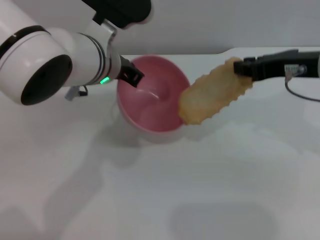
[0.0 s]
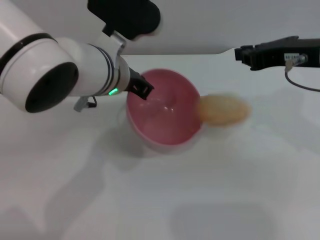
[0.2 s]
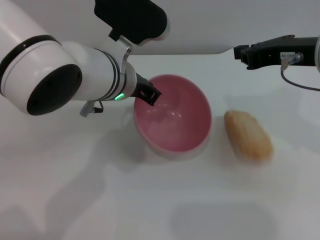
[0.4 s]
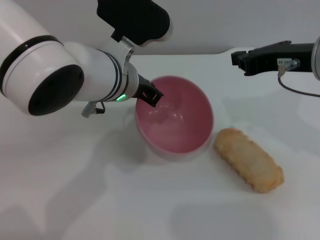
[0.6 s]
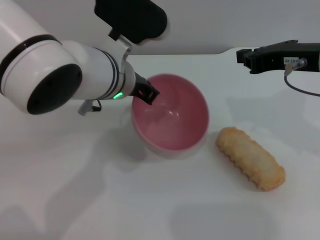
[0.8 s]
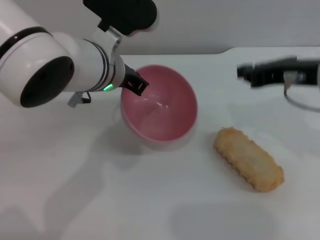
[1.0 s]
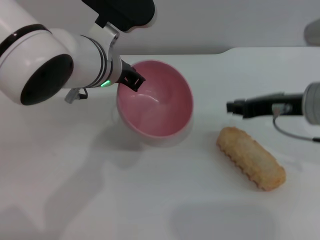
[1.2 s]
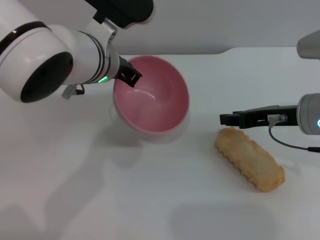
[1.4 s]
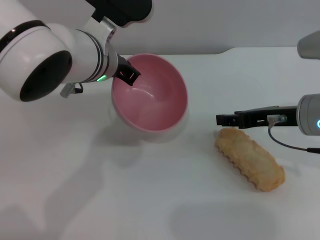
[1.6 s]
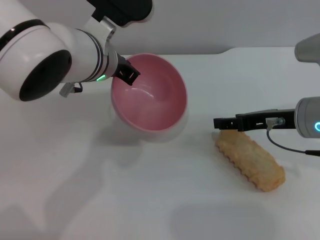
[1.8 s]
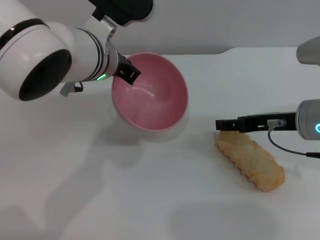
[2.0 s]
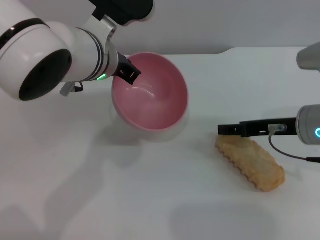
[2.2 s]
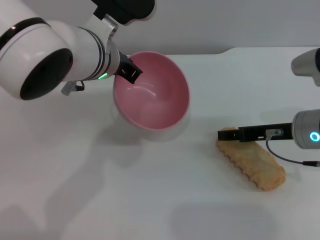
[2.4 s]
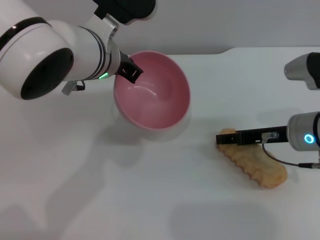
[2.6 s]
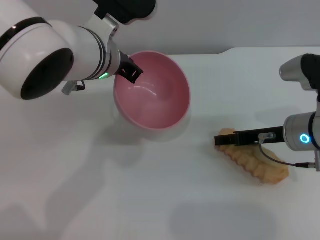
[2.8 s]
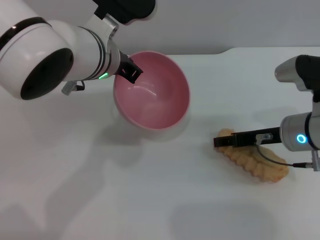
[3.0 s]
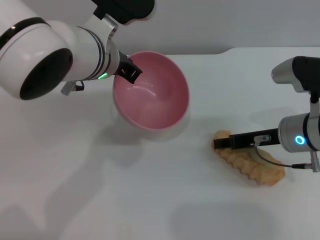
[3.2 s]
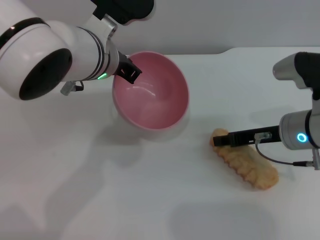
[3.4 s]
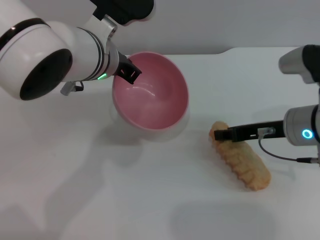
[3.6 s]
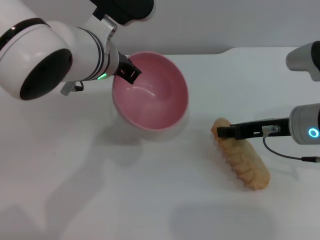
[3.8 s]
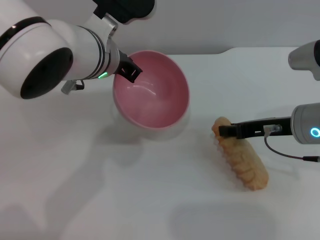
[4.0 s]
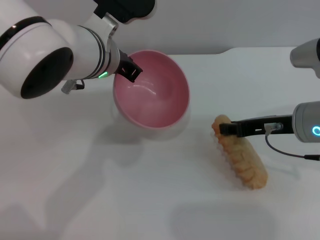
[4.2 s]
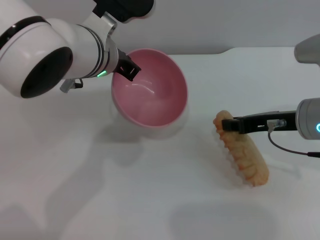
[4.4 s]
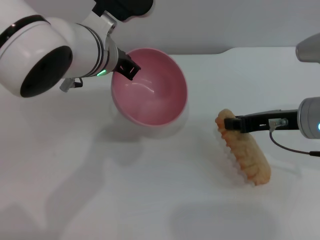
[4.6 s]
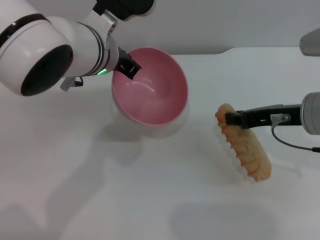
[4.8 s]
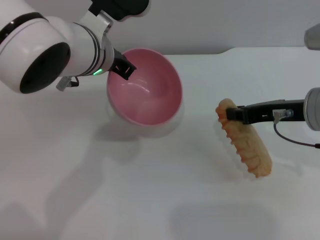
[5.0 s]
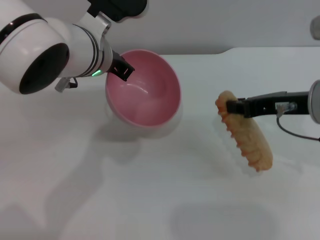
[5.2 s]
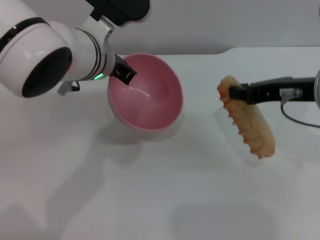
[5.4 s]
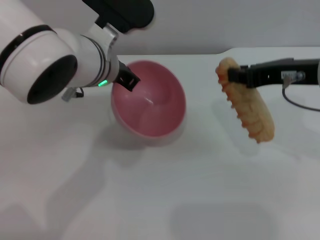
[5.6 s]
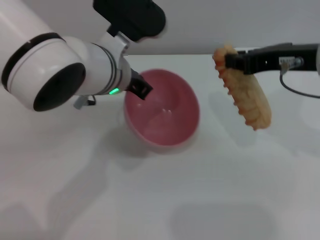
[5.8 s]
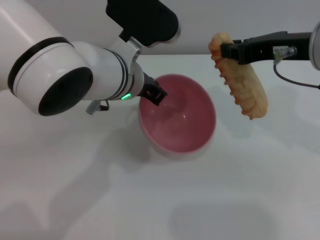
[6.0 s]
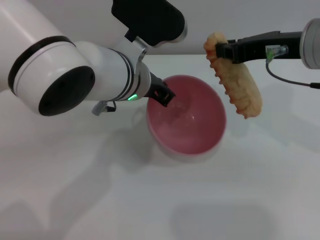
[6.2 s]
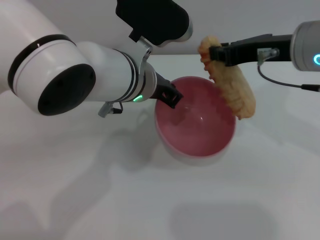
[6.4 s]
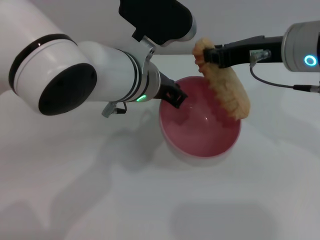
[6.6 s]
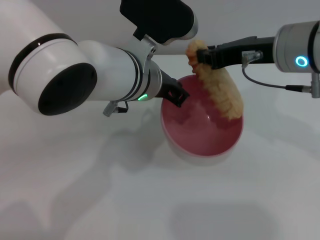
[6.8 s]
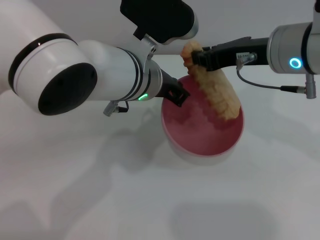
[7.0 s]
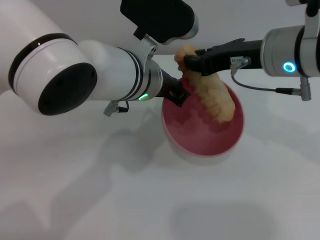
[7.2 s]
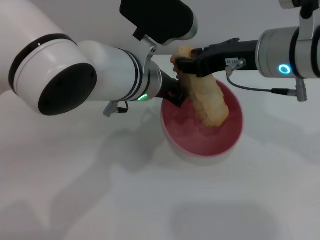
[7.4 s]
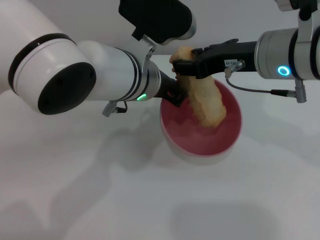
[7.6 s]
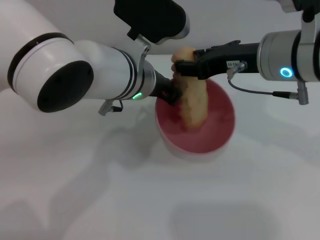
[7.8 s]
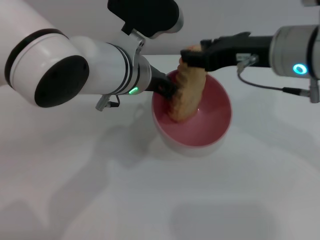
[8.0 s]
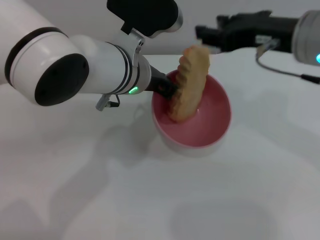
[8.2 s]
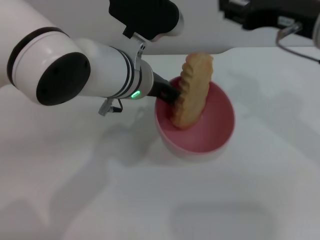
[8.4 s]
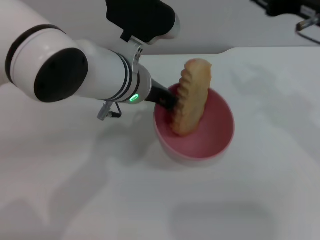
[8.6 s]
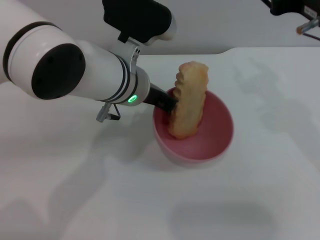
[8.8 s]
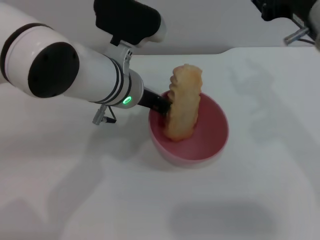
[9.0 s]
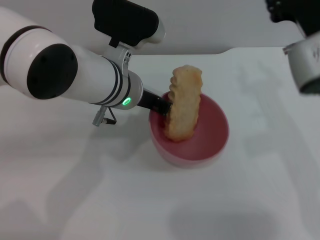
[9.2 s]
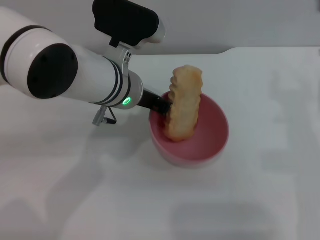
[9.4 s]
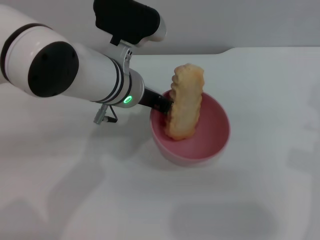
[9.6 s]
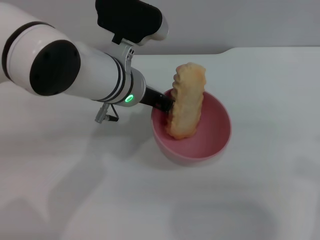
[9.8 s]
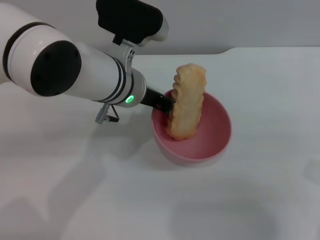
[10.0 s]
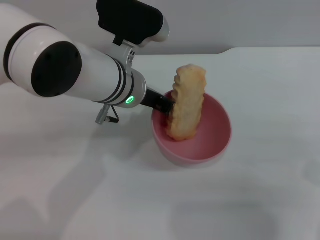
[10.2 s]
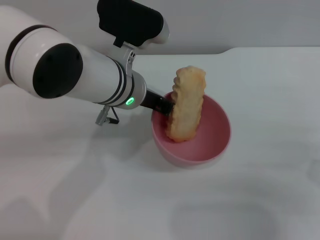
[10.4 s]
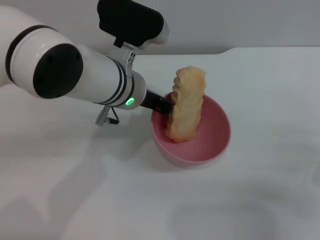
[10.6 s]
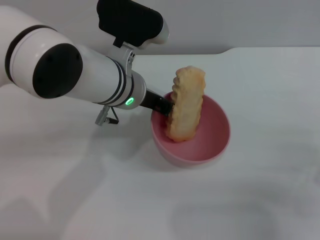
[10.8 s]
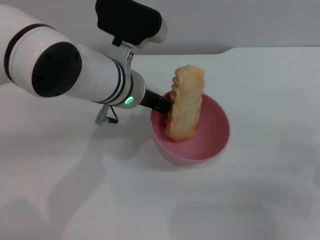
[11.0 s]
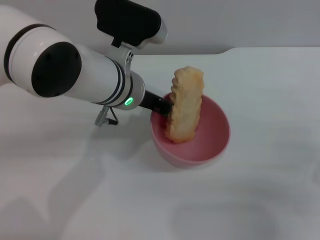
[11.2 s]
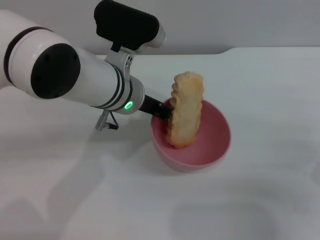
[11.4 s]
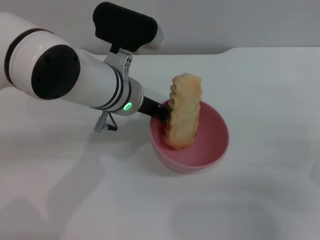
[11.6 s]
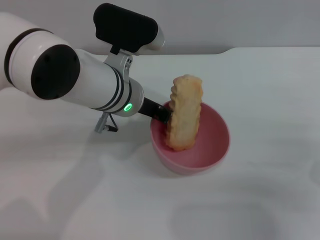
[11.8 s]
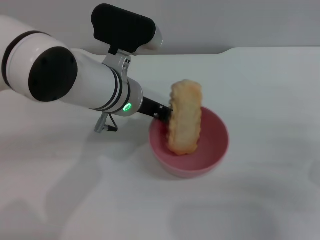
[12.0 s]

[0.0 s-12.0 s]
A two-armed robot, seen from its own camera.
Task of the whole recording: put the bread into the pink bowl and pour it out repeatedly.
Step, 0.0 to 5.2 s: Pick up the bread with the right gripper.
Step, 5.4 to 8.4 s: Place the bread into the bowl.
0.0 to 1.6 s: The right gripper travels downward by roughly 10 cm.
1.6 to 3.0 s: The right gripper goes approximately 5 cm downward, and opens its fingers.
3.0 to 4.4 s: The right gripper travels upward by approximately 5 cm, and closes its fingers.
4.4 to 6.0 s: The right gripper shifts about 10 cm upward.
6.0 to 7.6 s: The right gripper ends up approximately 5 cm from where it was, and opens.
7.6 to 9.0 s: The right gripper ends up about 5 cm from where it was.
9.0 to 10.4 s: The right gripper moves downward, backward and to the right, approximately 20 cm.
10.4 to 12.0 s: The grippers stay close to where they were, moving slightly.

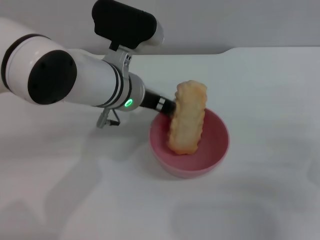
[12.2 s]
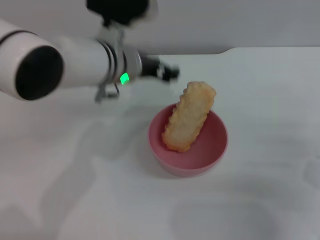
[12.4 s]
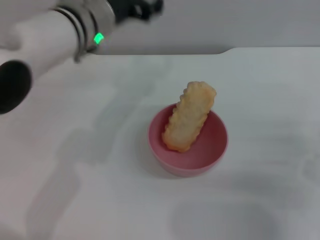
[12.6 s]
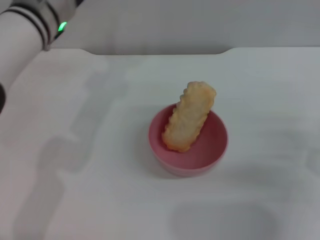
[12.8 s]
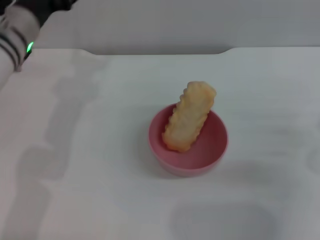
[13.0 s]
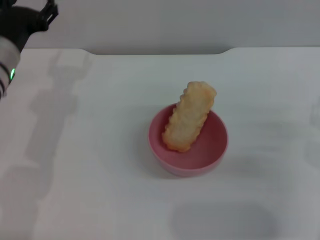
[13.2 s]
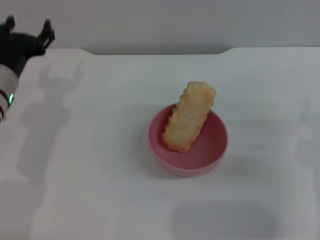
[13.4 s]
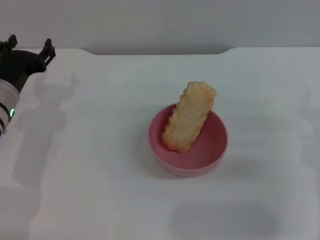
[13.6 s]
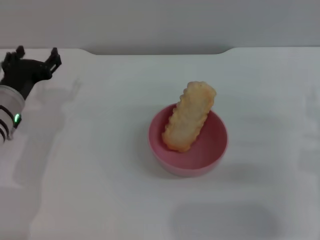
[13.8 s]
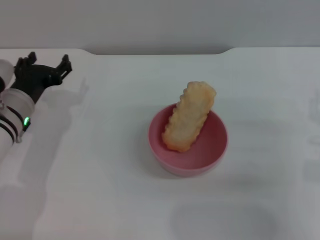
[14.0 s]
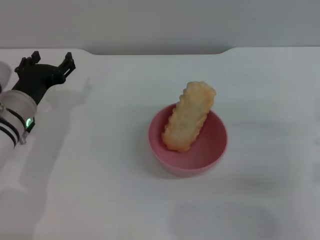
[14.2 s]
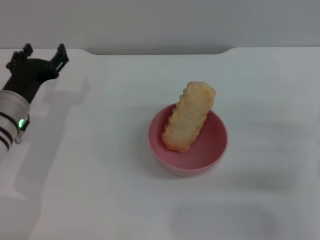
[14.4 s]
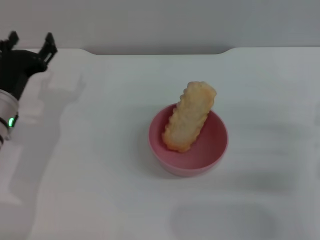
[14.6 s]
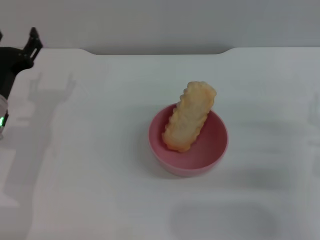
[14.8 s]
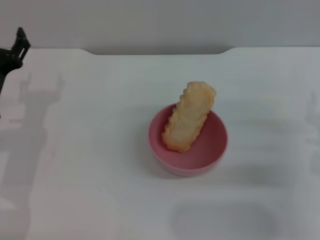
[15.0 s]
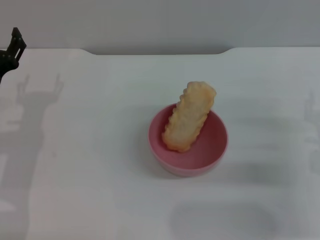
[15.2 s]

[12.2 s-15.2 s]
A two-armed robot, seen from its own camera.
Task of the whole recording: put the bread into the pink bowl and pour it out repeatedly.
12.2 to 13.8 s: The left gripper is displaced to the left and downward by approximately 20 cm, and opens.
13.8 to 15.2 s: The grippers make only small movements.

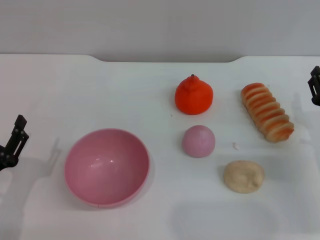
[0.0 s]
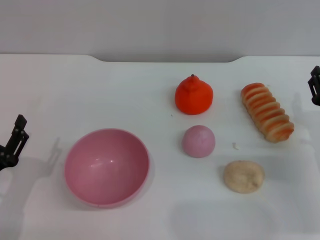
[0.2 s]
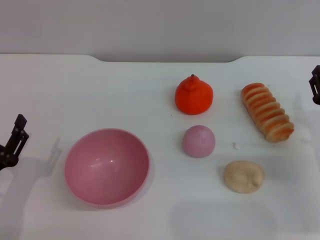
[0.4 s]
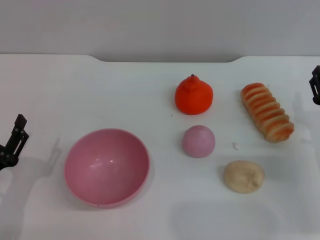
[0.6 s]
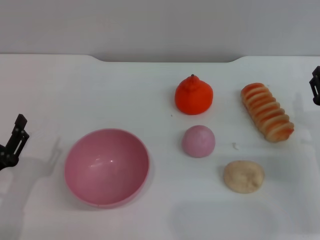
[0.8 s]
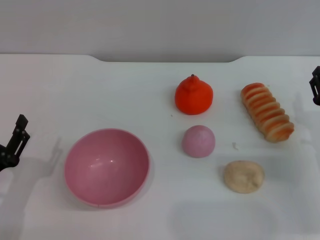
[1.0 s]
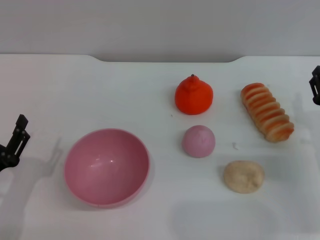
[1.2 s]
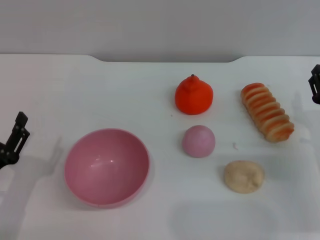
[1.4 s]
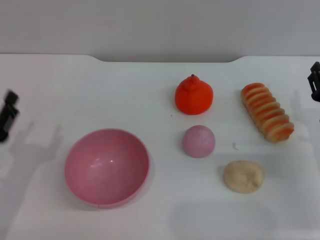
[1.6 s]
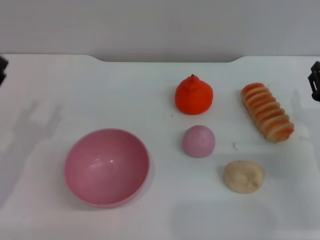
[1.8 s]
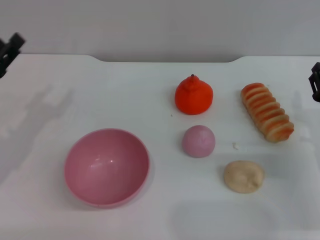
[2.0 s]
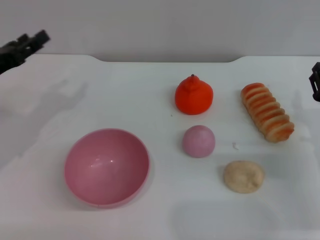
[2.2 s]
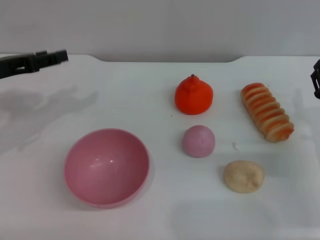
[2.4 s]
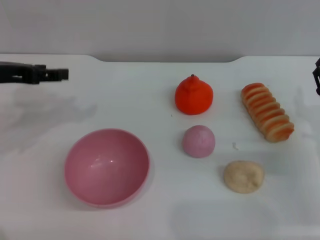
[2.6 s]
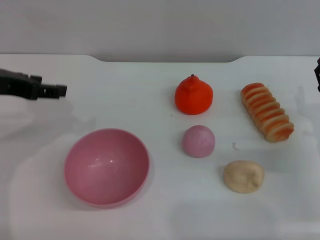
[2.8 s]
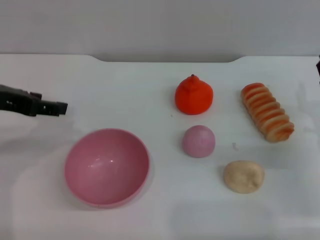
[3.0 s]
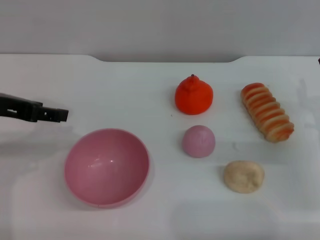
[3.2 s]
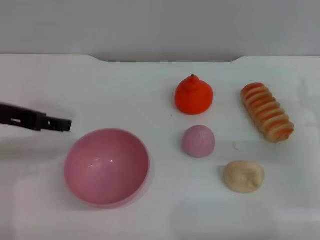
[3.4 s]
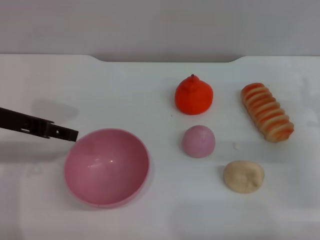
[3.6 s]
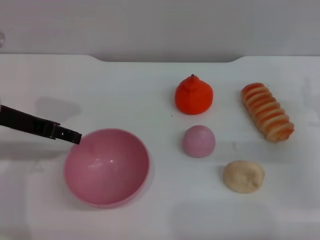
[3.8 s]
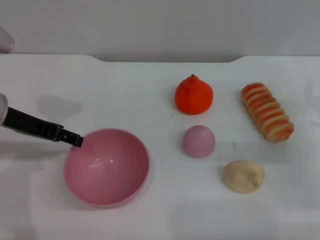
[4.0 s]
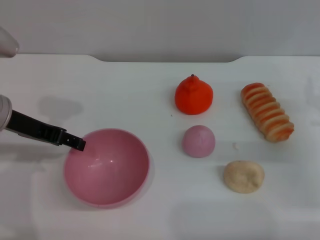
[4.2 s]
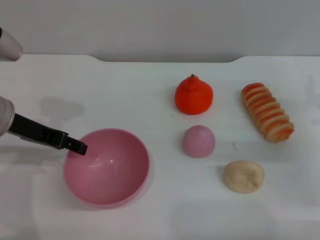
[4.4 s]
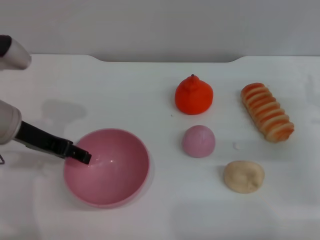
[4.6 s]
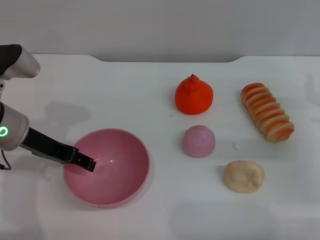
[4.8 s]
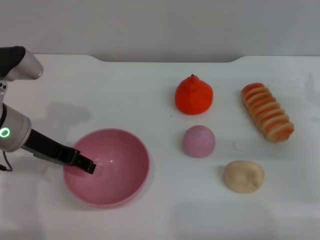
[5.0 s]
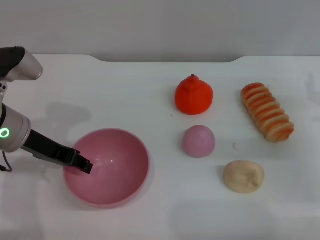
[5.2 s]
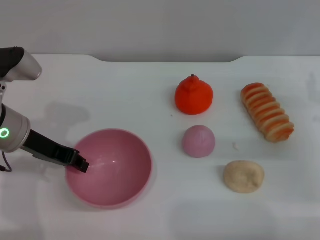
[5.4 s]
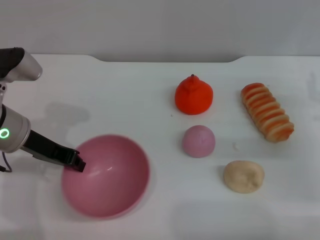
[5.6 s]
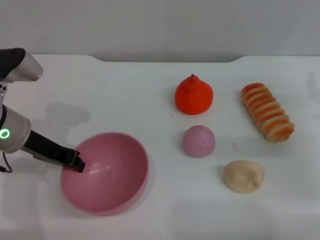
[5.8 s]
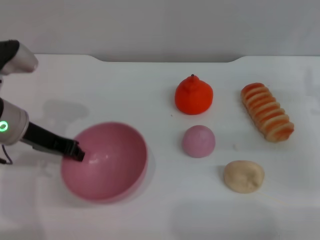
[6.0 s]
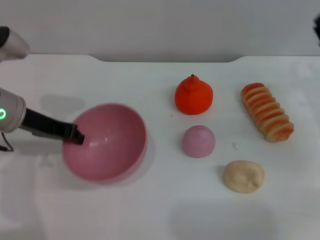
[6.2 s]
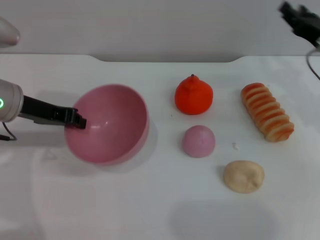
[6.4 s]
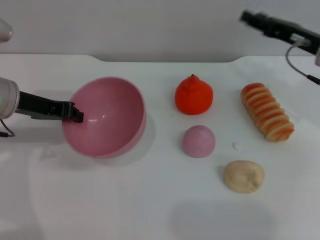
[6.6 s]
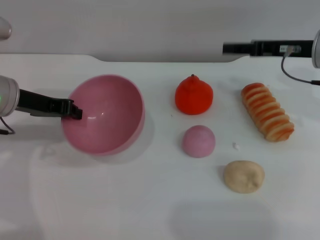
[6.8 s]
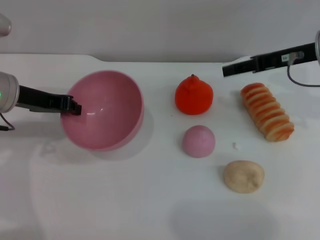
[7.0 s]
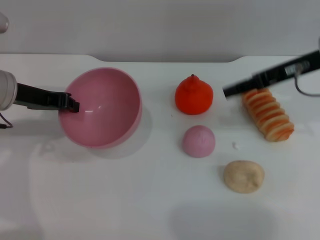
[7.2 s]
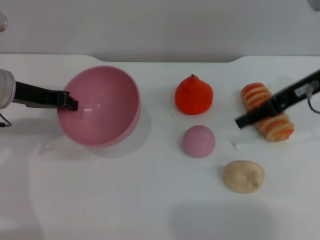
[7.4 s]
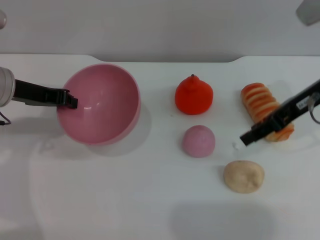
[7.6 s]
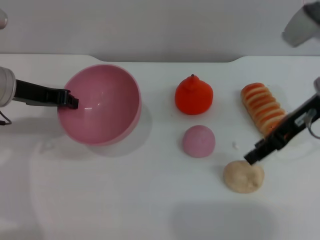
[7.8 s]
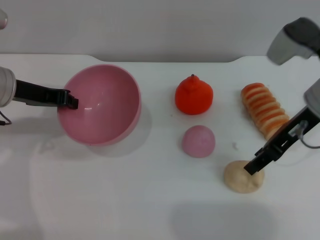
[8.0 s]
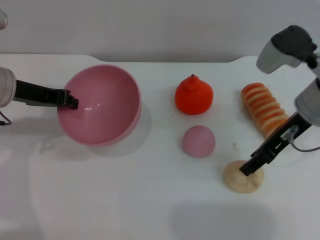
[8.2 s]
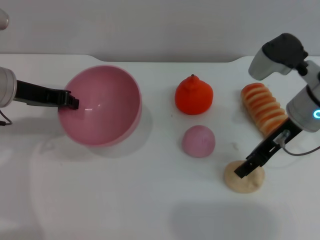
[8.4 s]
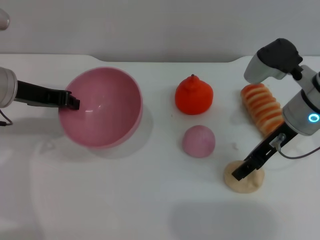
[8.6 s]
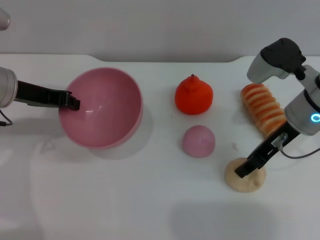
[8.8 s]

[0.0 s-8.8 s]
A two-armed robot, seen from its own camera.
Task of the whole recording: put the egg yolk pastry into the pink bowl and pour it out repeatedly.
Step, 0.0 to 6.4 s: Pick up the bowl with the left gripper.
1.4 to 3.0 s: The left gripper heads upward and forward, covering about 25 cm.
3.0 to 4.4 s: The left gripper goes about 5 cm downward.
4.4 to 5.8 s: The left gripper closes up.
5.8 to 7.4 s: The right gripper travels upward and to the left by about 15 cm.
7.4 to 8.8 s: The right gripper goes roughly 5 cm downward.
